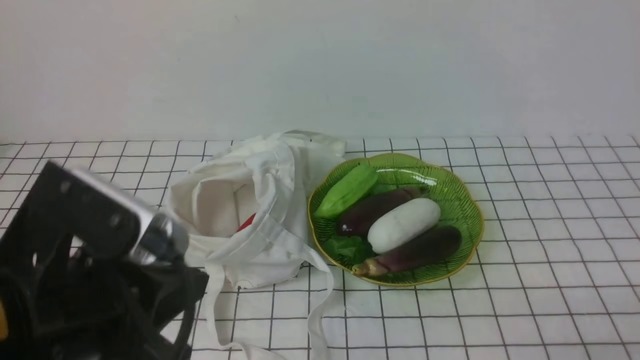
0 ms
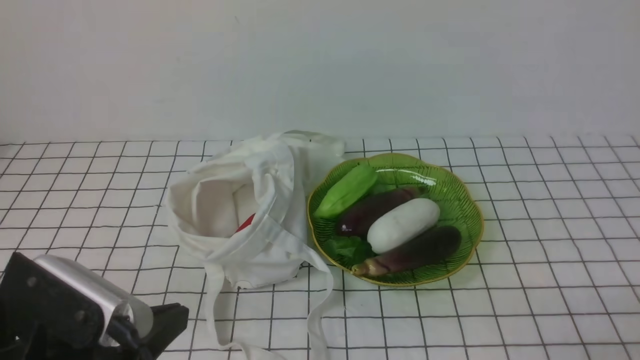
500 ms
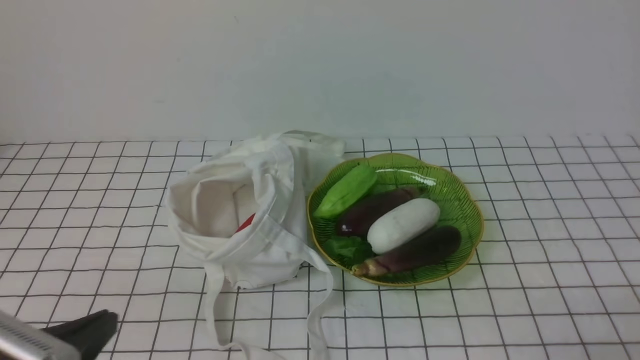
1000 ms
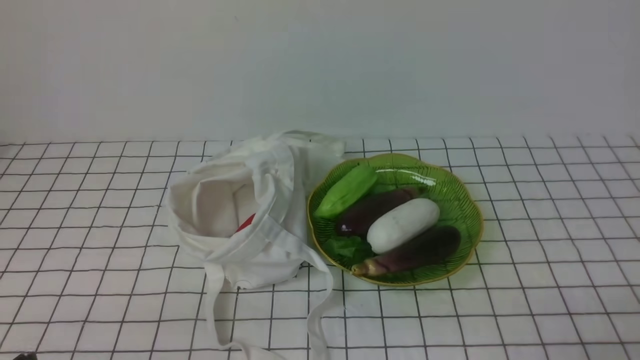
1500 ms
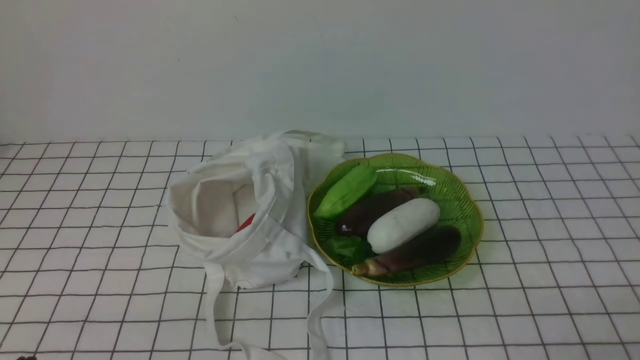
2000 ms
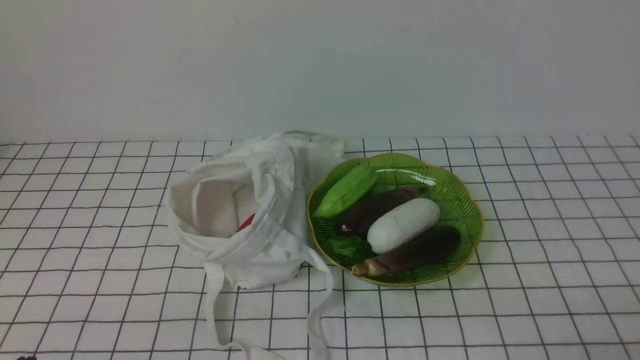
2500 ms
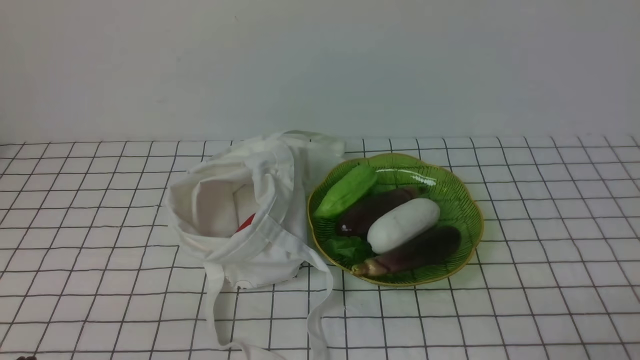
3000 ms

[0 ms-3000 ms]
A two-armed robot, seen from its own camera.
Task of the whole recording: take vegetables from bag on white checkered tablecloth place on plate.
0 ms to 1500 ms: The left gripper goes some 20 cm downward, to the left and backward.
1500 ms to 3000 ms: Both grippers stay put.

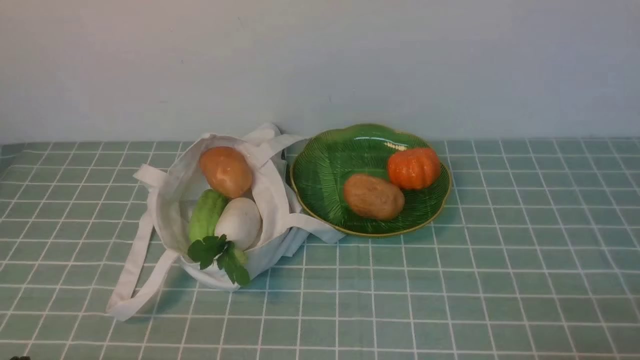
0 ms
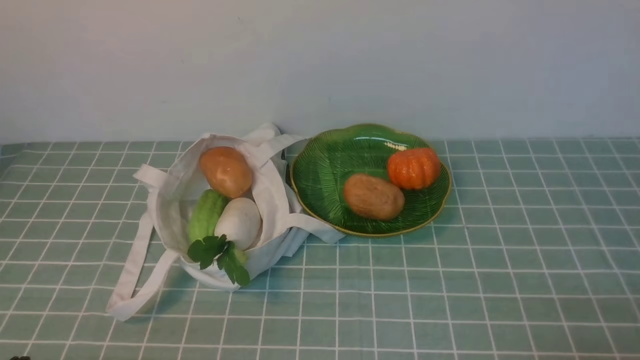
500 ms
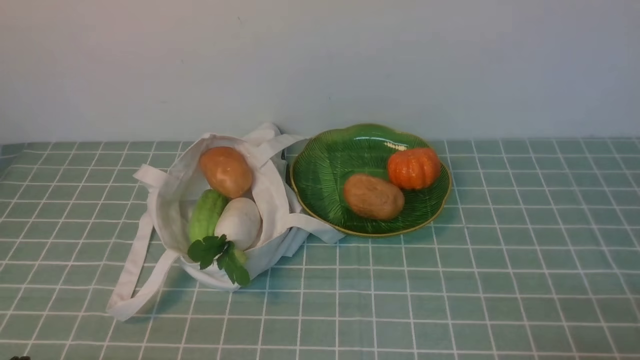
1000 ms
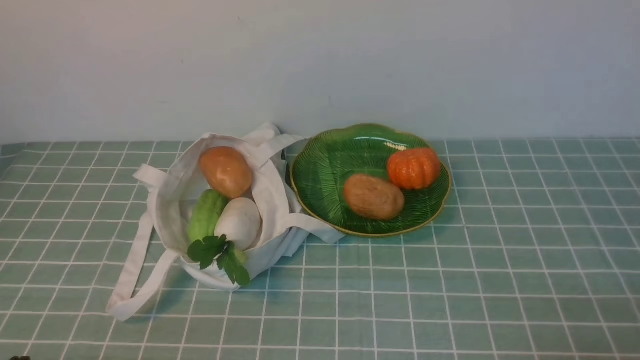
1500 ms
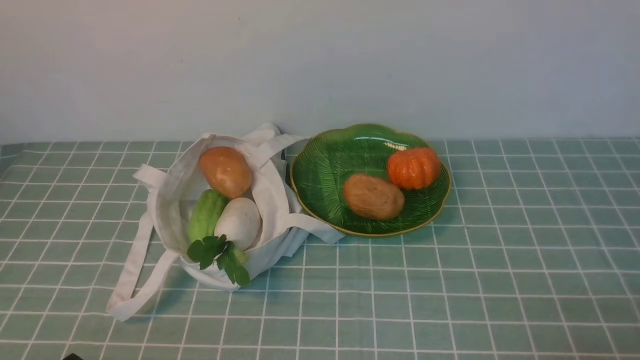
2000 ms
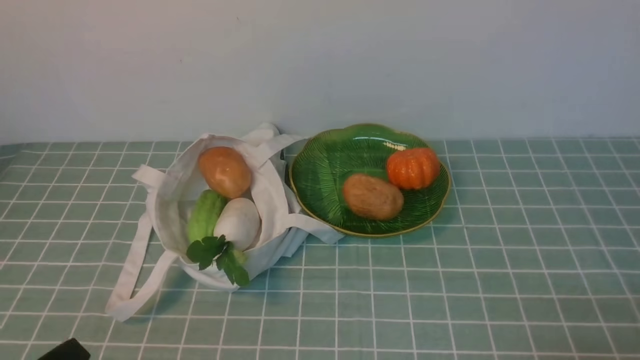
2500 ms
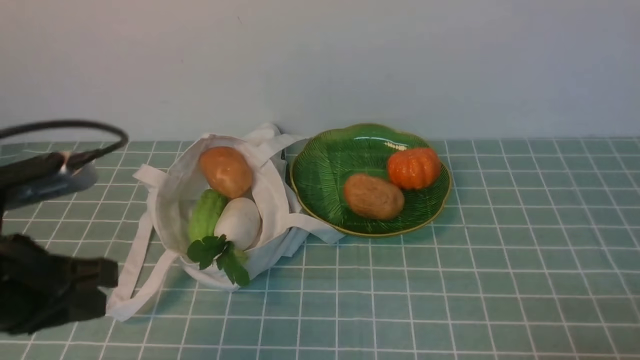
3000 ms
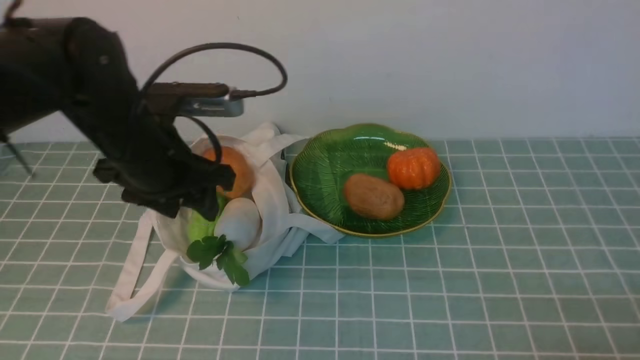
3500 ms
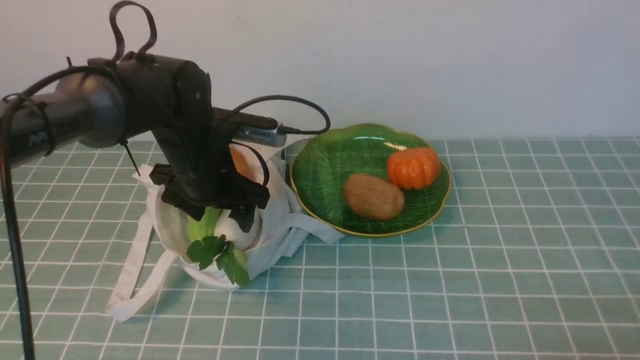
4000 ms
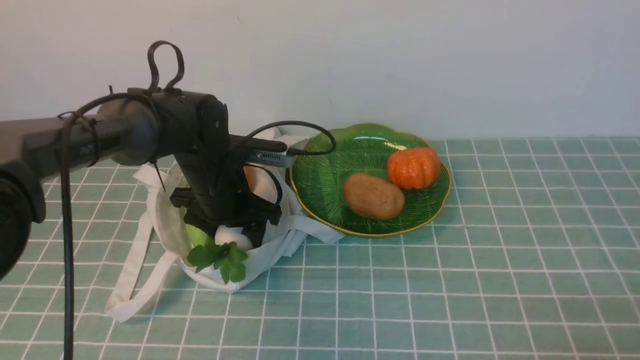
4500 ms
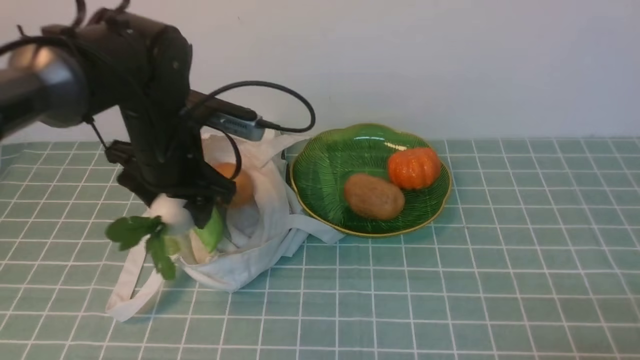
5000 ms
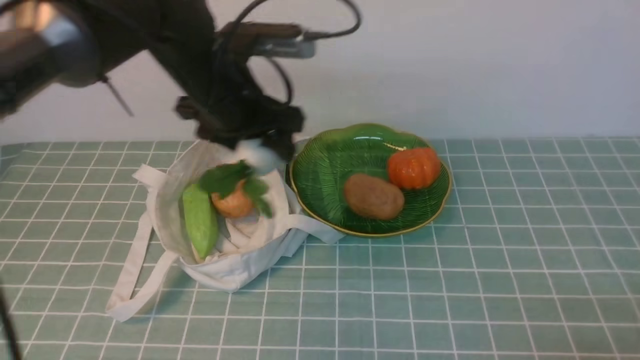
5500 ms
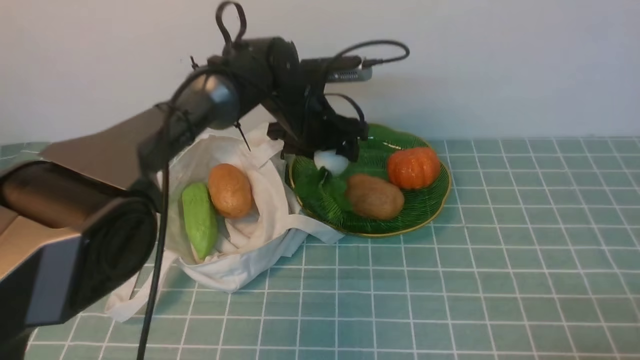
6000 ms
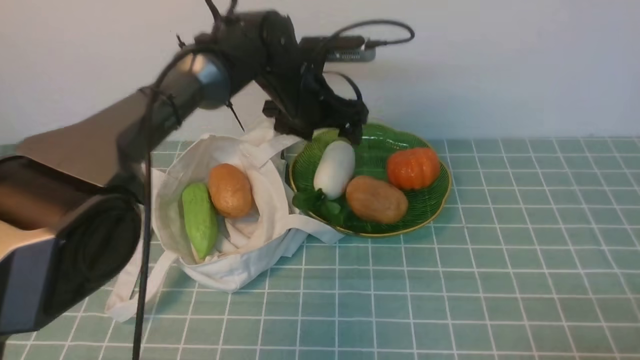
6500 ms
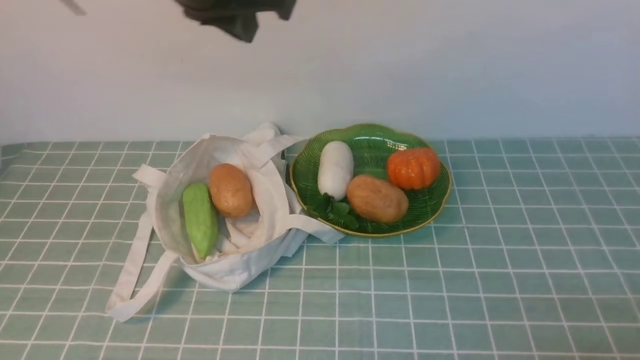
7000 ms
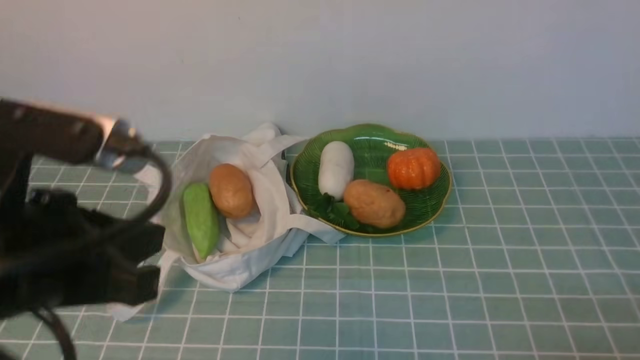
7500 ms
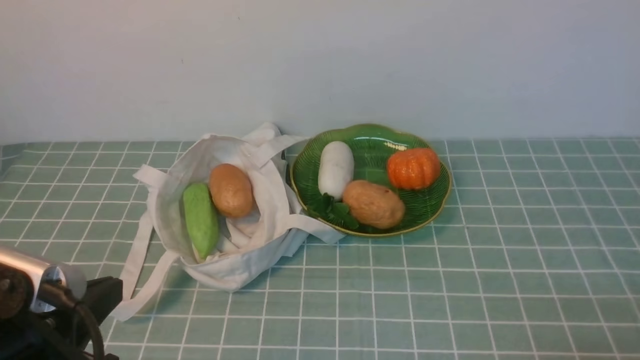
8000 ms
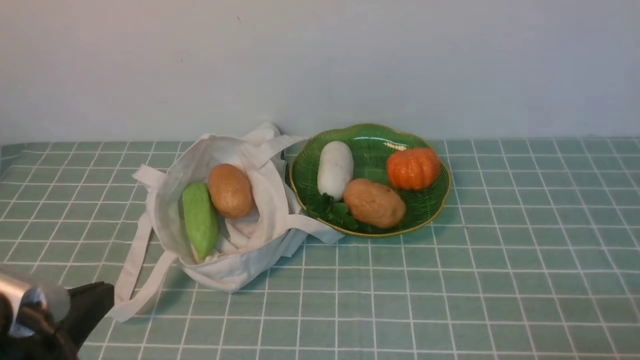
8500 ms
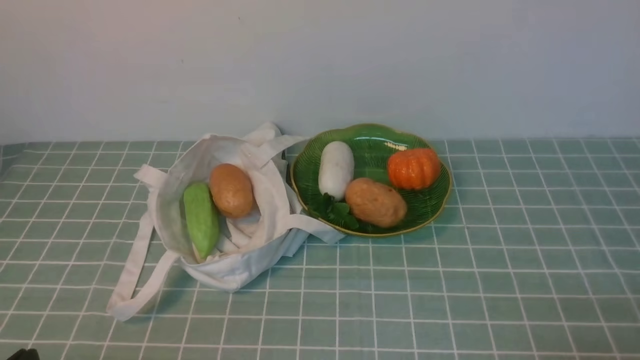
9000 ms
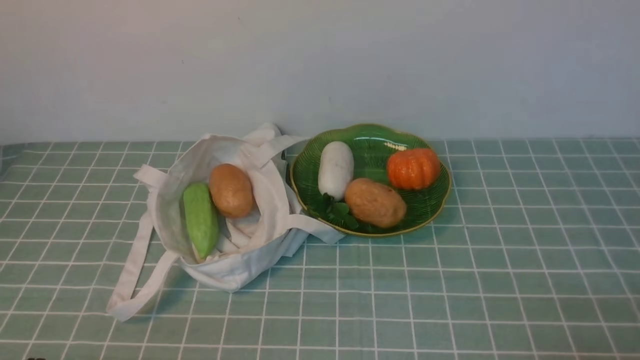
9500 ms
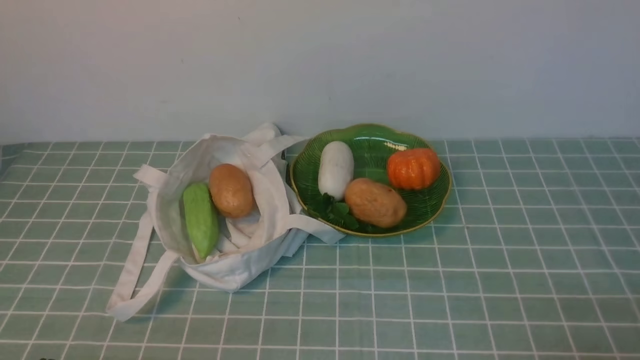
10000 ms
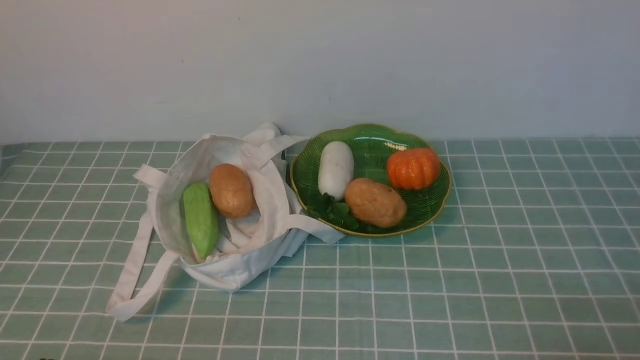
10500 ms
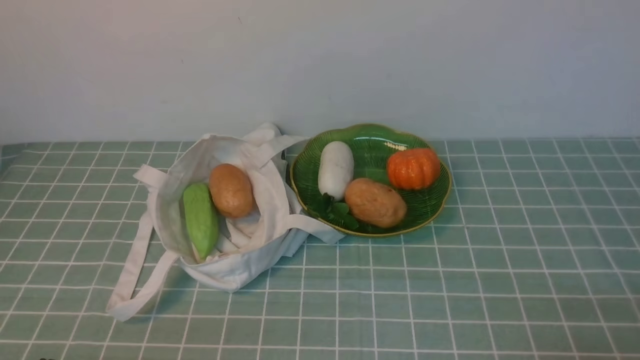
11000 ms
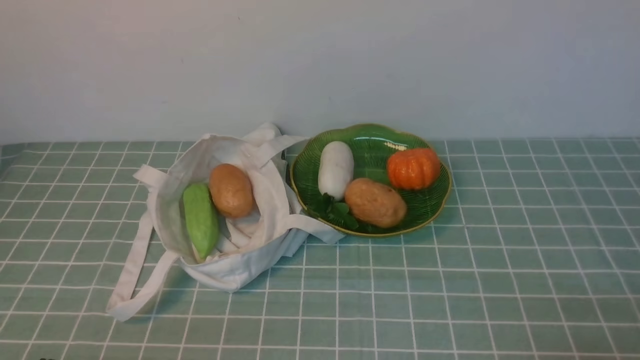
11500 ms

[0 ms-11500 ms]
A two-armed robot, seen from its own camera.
Task of the whole recording: take vegetables from cloth bag on blue coffee tablecloth place on plate.
Step, 0 ms to 4500 ms: Grasp the radish with left gripper.
Step, 5000 ms to 6000 ms: Place the radish on the plate with left gripper.
2000 ms to 4000 ms: The left gripper moves forward, about 35 cm, and opens up.
4000 ms to 6000 ms: The left gripper goes up and down, roughly 10 cm each way, reversing 2 times.
6000 ms to 7500 ms: The left gripper goes about 35 cm backward, to the left and upward, and closes up.
7500 ms to 9500 ms: The left gripper goes approximately 25 cm downward, backward and to the left.
9500 ms to 11500 ms: Both grippers stay about where they are.
